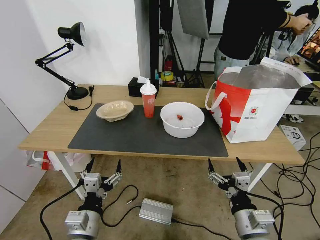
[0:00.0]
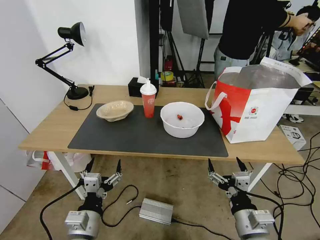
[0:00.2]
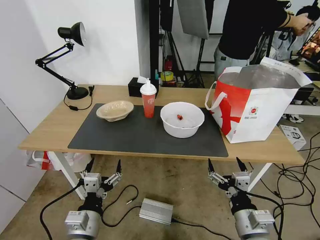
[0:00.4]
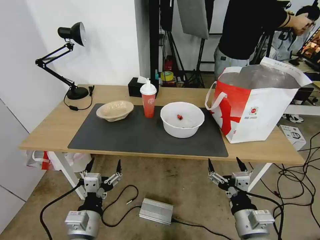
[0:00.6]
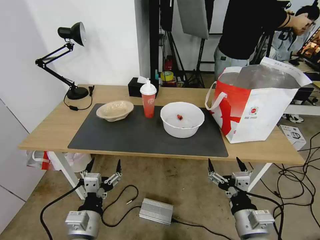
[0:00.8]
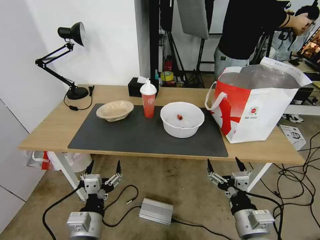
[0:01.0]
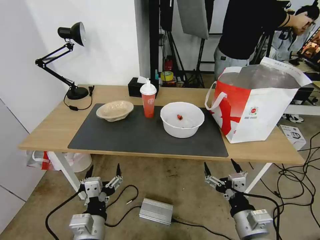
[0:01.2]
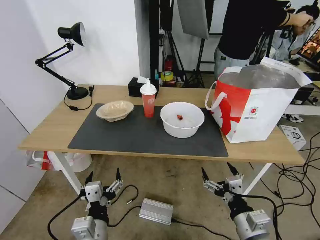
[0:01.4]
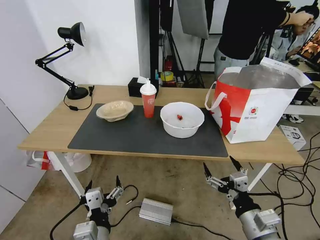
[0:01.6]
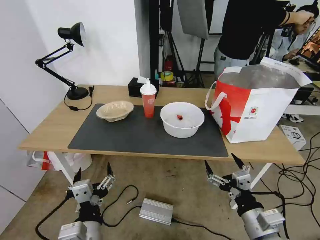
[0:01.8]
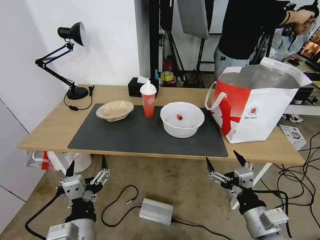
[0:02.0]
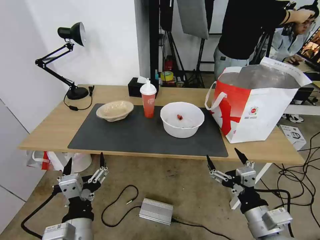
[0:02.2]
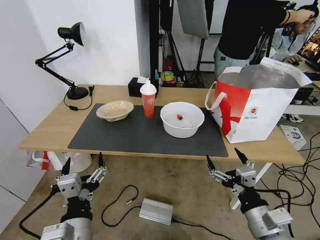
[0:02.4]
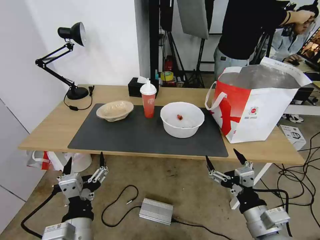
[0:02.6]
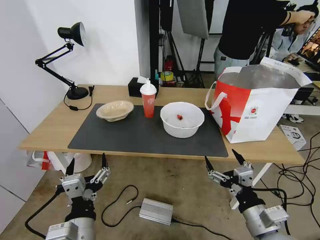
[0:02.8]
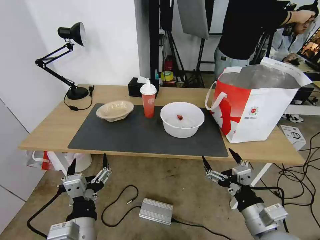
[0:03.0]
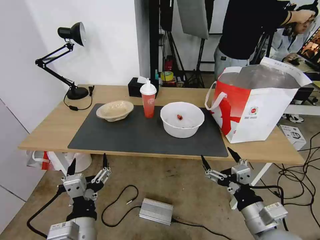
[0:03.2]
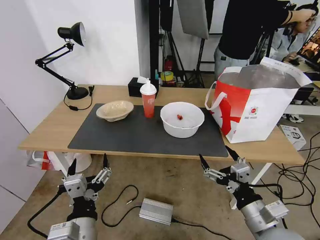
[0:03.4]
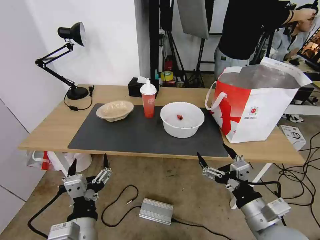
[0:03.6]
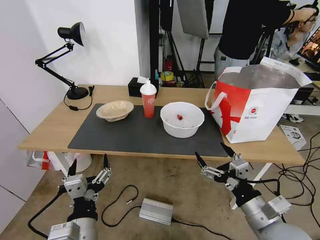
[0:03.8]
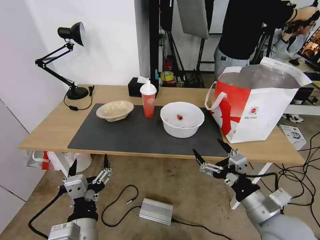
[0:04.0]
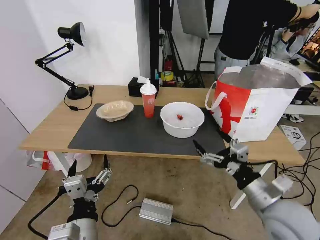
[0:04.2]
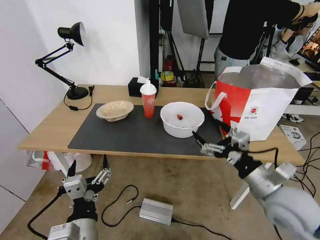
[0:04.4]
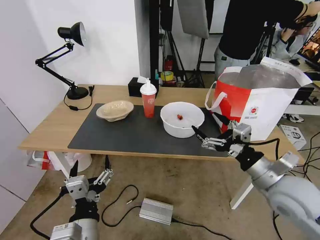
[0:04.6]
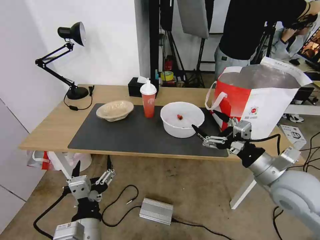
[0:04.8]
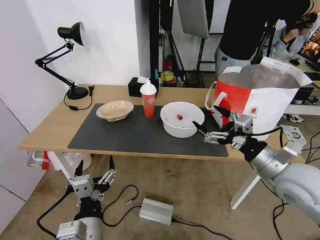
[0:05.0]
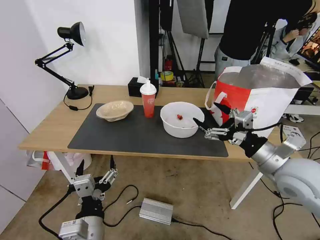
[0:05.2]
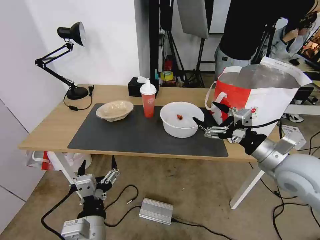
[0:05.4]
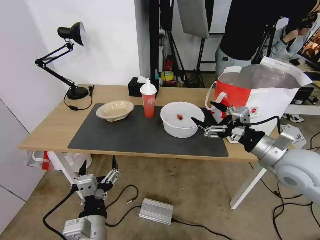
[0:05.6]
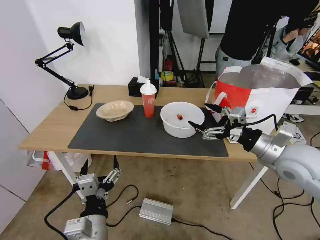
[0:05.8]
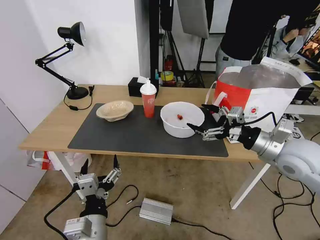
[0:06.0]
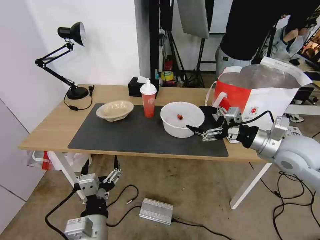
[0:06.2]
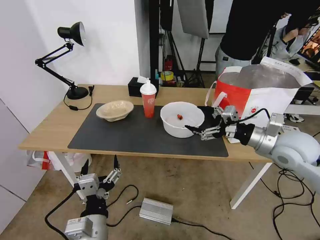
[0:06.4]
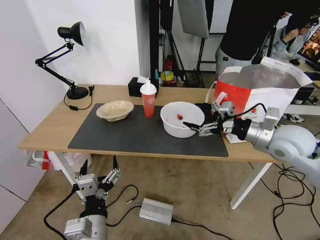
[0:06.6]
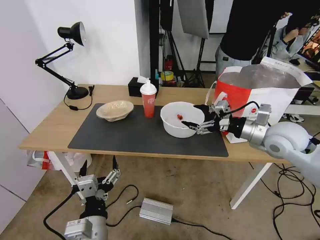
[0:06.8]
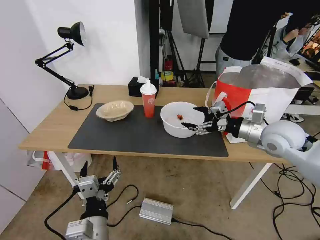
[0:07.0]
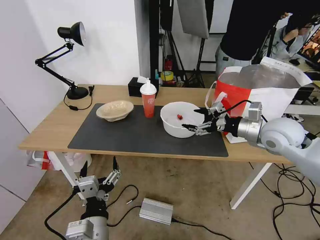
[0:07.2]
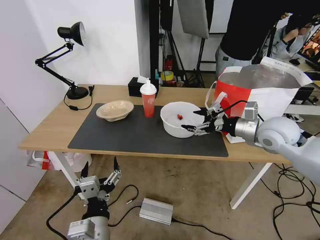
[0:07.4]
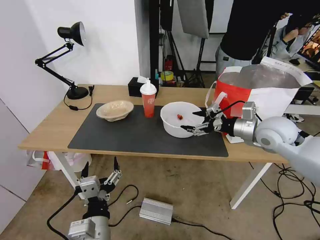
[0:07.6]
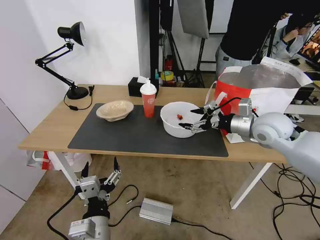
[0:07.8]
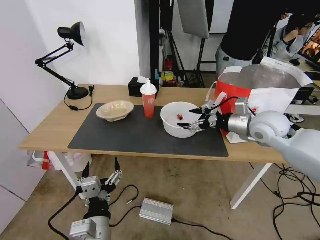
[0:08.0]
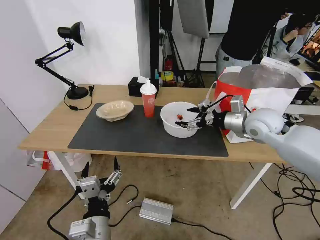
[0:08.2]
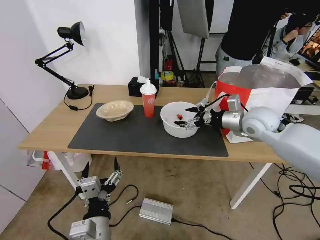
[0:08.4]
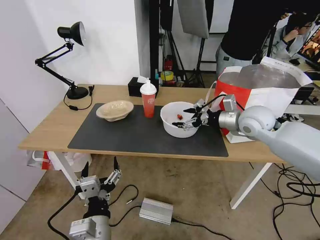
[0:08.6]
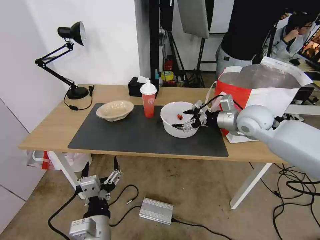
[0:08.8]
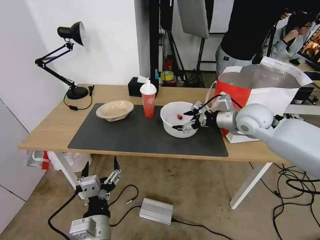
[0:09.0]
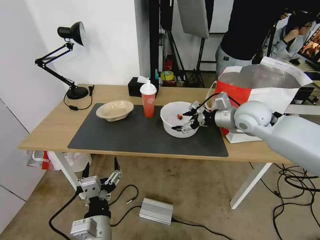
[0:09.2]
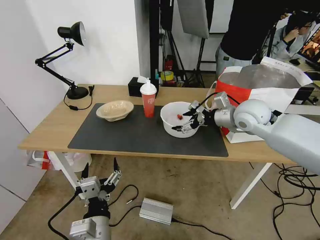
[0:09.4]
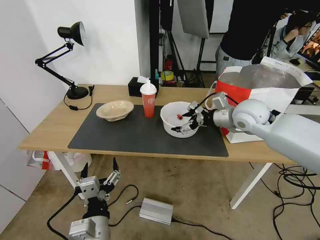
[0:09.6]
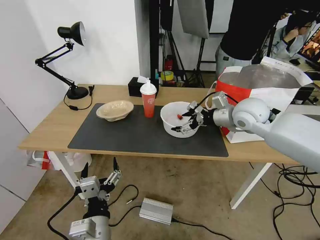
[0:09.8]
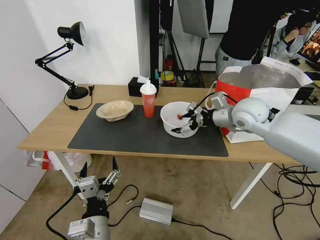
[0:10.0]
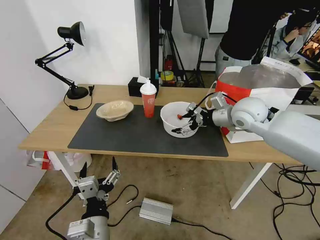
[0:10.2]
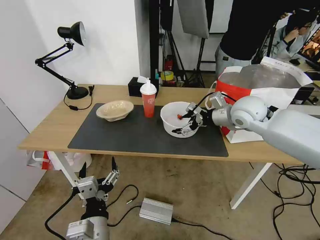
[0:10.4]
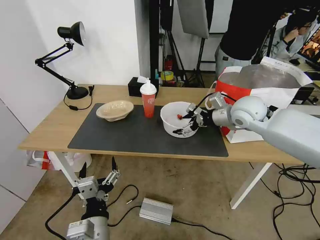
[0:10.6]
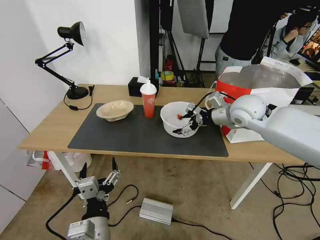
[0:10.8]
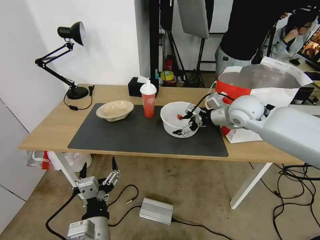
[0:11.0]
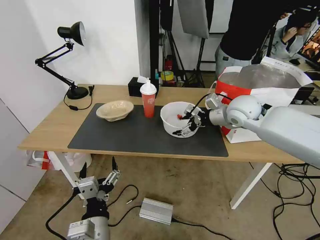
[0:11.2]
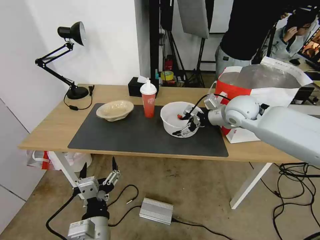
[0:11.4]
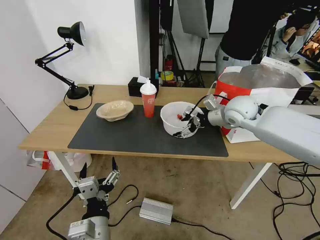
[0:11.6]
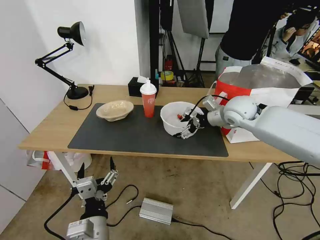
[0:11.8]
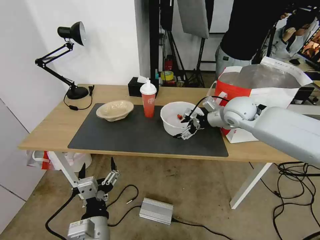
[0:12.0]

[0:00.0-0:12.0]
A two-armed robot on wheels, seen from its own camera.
Task of the whole recording: Pick up the trash from the table and place it into the takeout bag.
0:01.6 to 0:03.0: The grippers move only a little.
0:03.0 to 0:04.4: The right gripper moves forward and upward, approximately 10 cm.
0:04.4 to 0:06.0: The right gripper shifts some 15 cm forward, upward and to the right.
0:06.0 to 0:07.6: The right gripper is displaced forward by about 10 cm.
0:07.6 to 0:09.0: The right gripper changes place by some 5 cm.
0:09.0 to 0:12.0: The grippers stay close to where they were, moving slightly.

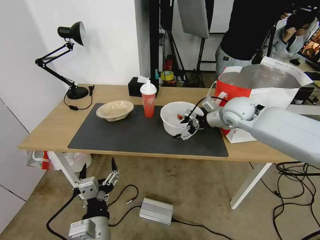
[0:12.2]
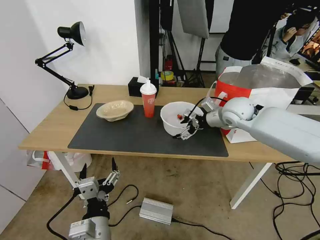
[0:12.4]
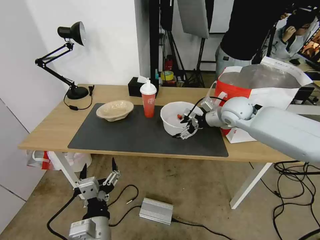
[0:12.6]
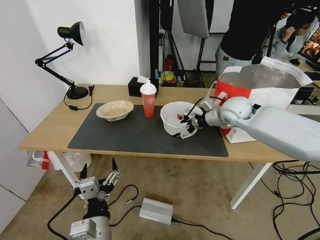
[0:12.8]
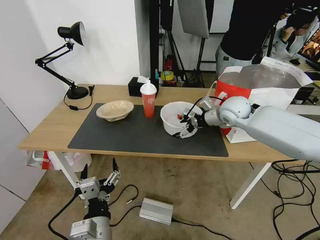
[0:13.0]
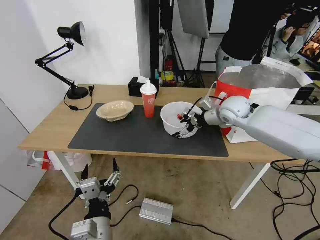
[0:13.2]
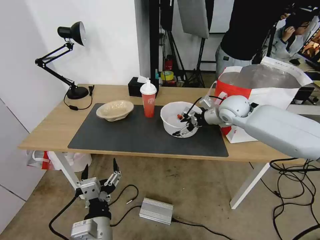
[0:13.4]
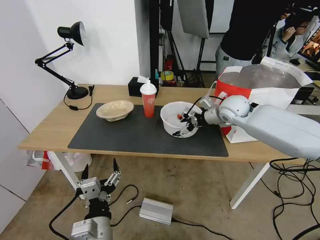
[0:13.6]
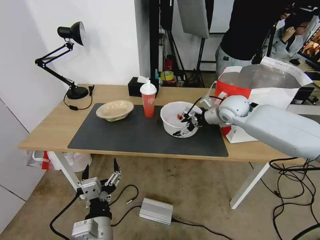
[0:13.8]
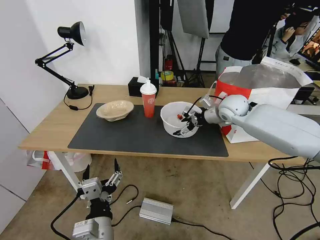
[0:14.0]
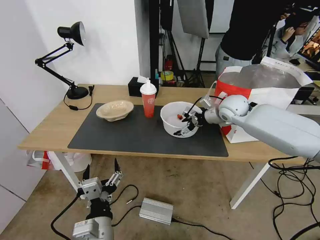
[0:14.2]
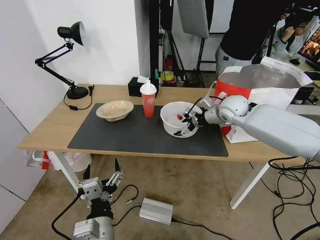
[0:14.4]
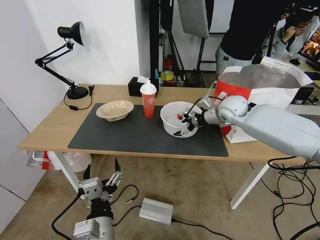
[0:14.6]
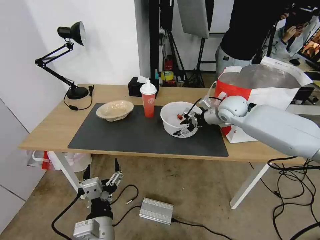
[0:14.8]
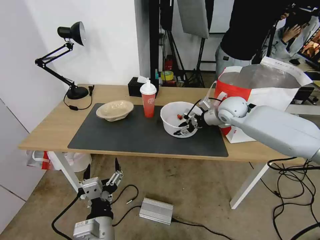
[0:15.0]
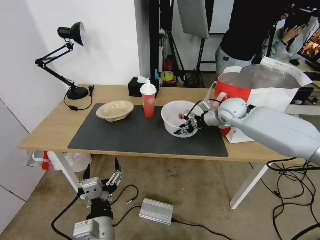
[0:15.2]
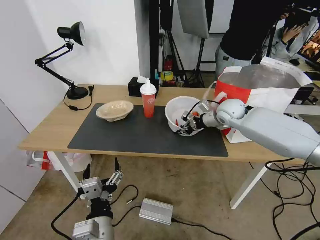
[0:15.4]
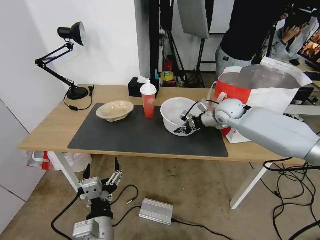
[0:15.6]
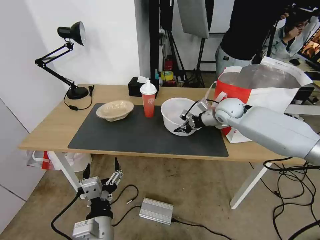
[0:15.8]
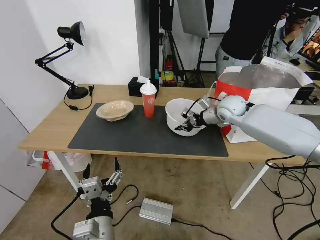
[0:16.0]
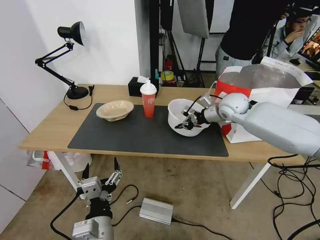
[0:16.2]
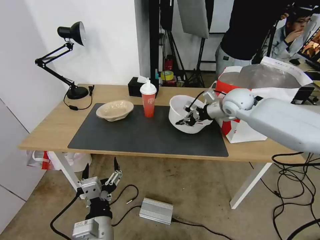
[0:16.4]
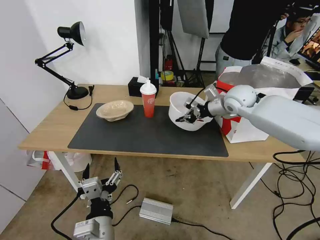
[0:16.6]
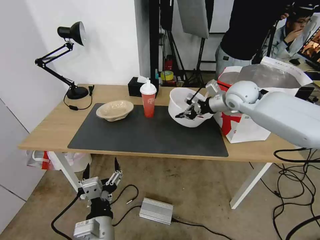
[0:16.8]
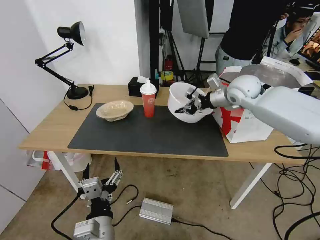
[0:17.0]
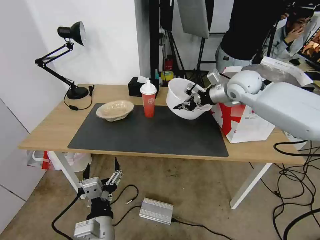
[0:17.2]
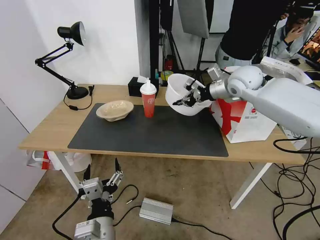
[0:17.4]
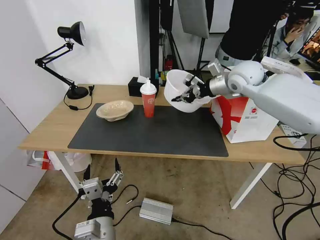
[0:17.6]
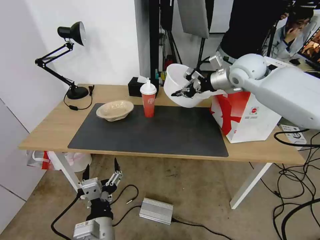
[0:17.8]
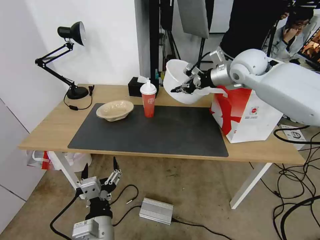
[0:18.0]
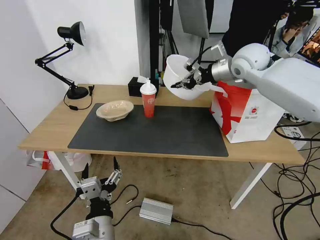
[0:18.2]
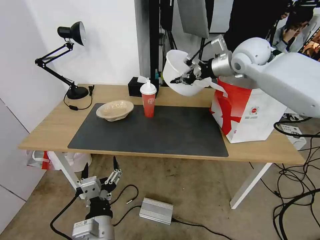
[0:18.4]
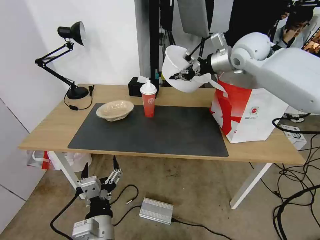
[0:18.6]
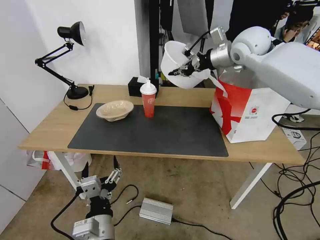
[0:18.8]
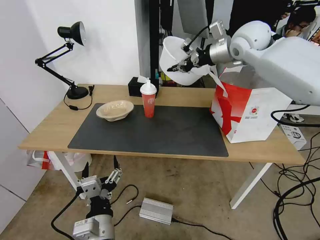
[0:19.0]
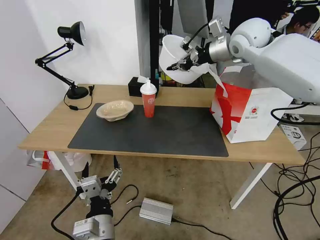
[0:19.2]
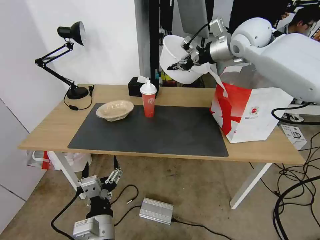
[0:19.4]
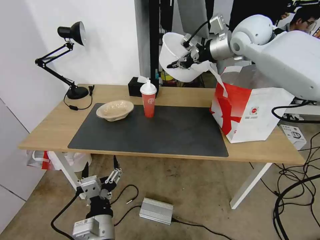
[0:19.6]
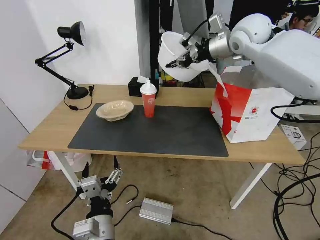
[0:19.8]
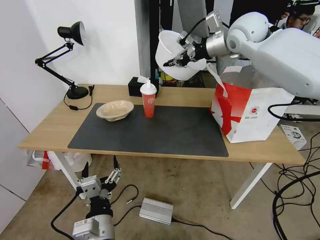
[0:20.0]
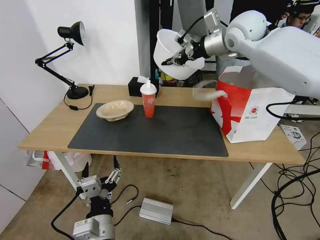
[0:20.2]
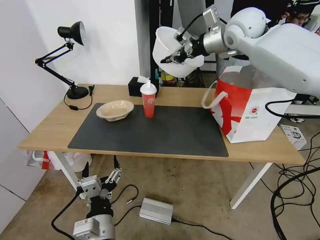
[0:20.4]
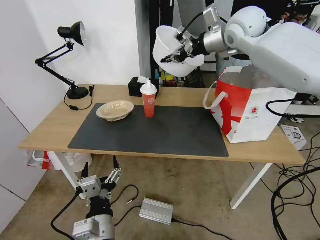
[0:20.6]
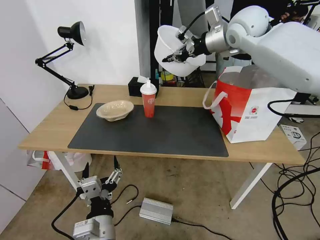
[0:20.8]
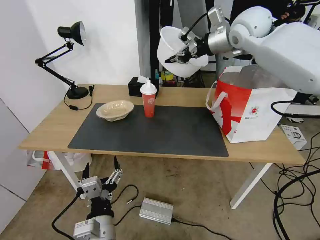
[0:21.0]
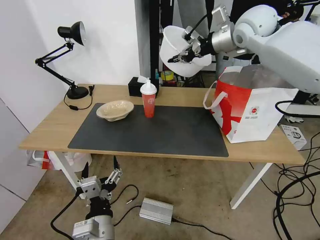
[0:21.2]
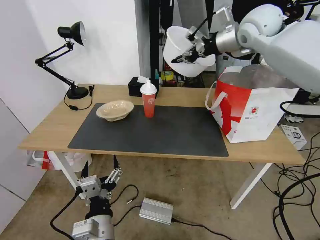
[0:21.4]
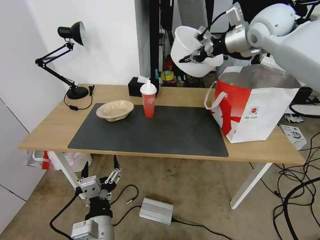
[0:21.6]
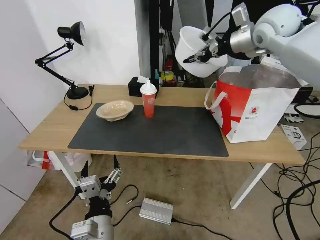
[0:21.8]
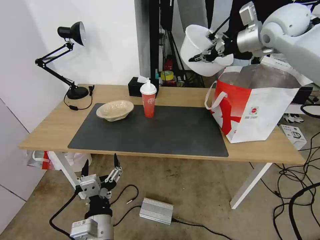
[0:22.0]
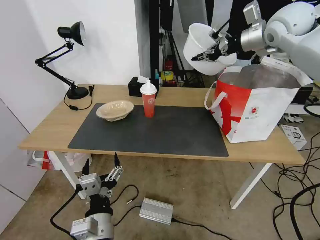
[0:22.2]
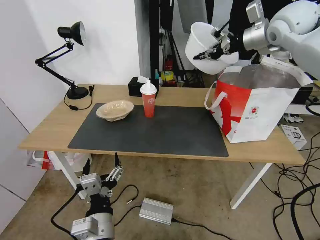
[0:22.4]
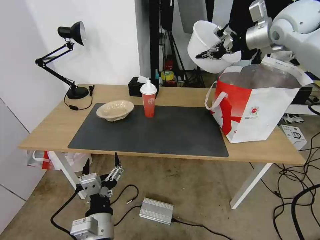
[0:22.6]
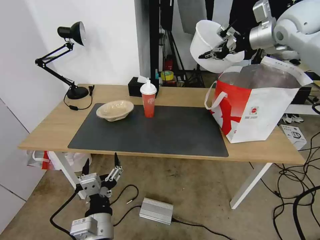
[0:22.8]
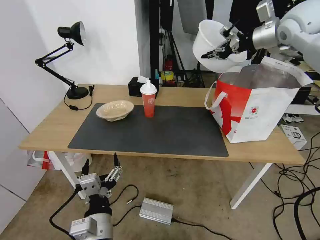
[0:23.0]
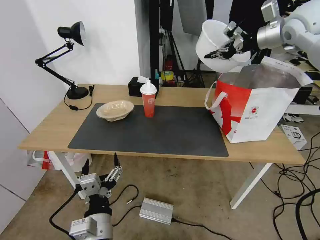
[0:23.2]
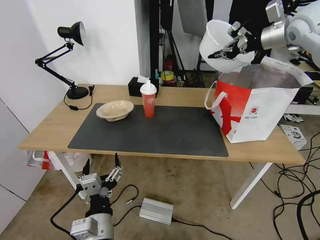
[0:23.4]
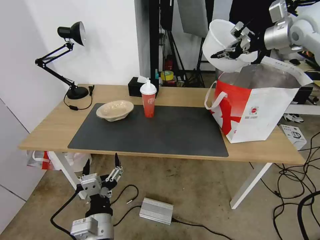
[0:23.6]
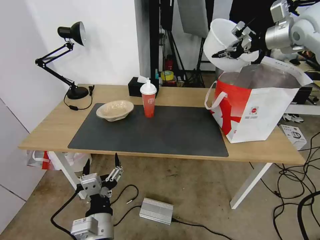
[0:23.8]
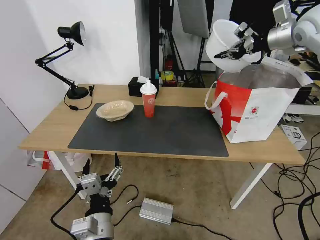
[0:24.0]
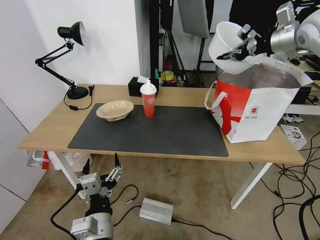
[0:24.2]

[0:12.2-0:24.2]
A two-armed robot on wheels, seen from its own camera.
Task of the whole recording: Pick up the trash from the table and place it into the takeout bag.
0:12.2 to 0:13.8: The grippers stay close to where they were, moving slightly.
0:13.8 to 0:15.2: The right gripper closes.
0:15.2 to 0:16.6: The right gripper is displaced upward by some 5 cm, and closes its fingers.
0:16.6 to 0:18.2: The right gripper is displaced upward by roughly 10 cm.
0:18.2 to 0:19.8: The right gripper moves upward, about 5 cm.
0:19.8 to 0:21.2: There are only small adjustments of the grippers.
0:21.2 to 0:22.6: The right gripper travels to the right by about 10 cm.
0:22.6 to 0:24.2: The right gripper goes roughly 10 cm to the right.
